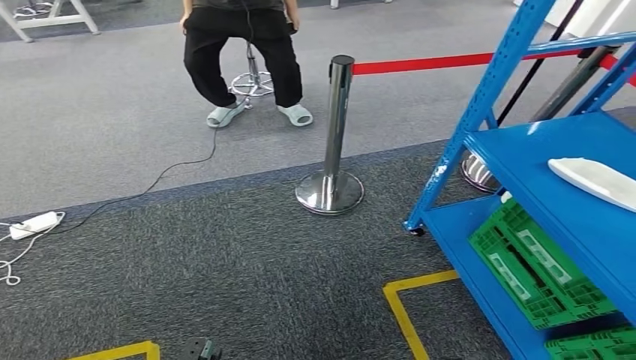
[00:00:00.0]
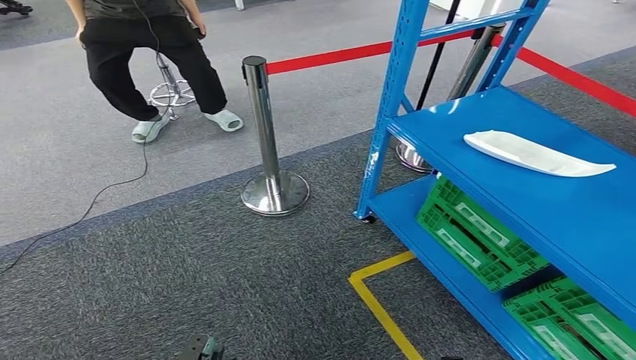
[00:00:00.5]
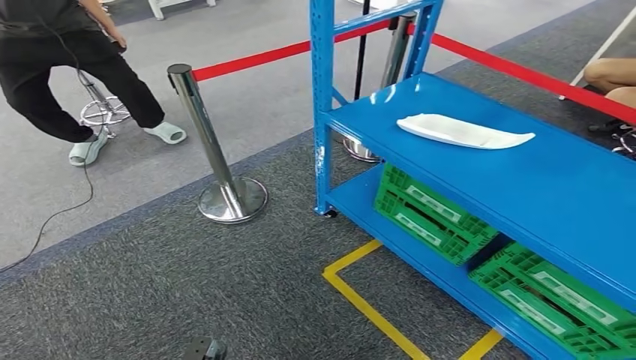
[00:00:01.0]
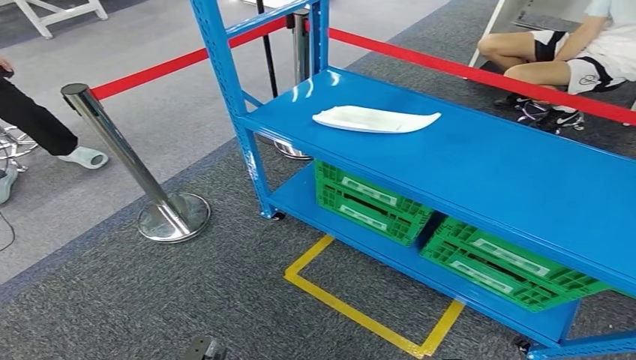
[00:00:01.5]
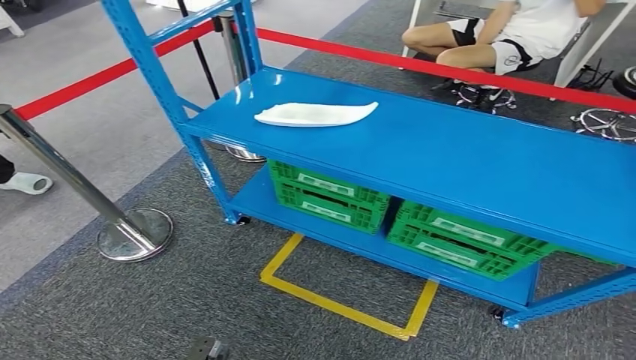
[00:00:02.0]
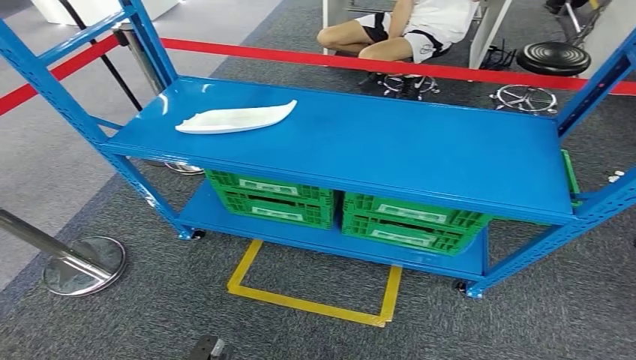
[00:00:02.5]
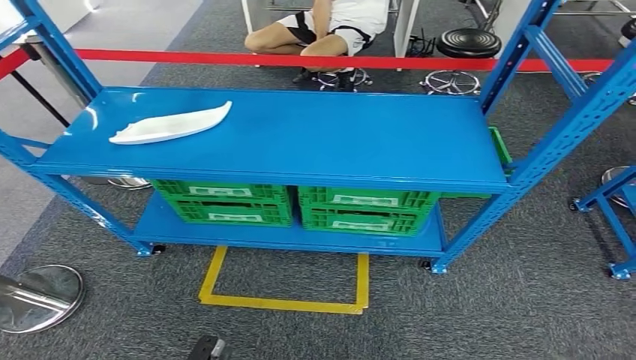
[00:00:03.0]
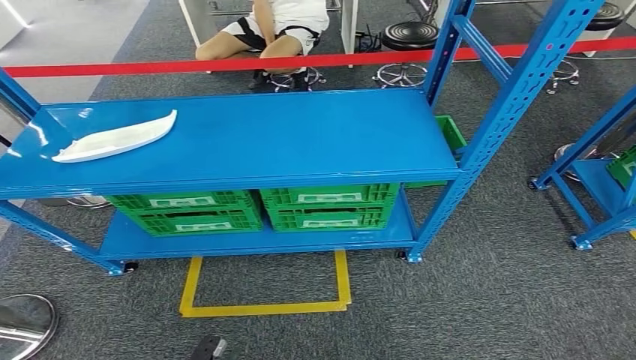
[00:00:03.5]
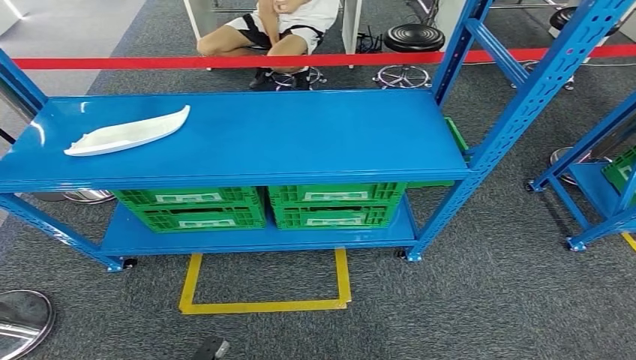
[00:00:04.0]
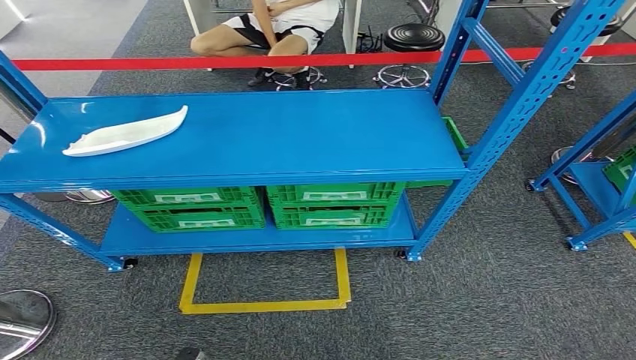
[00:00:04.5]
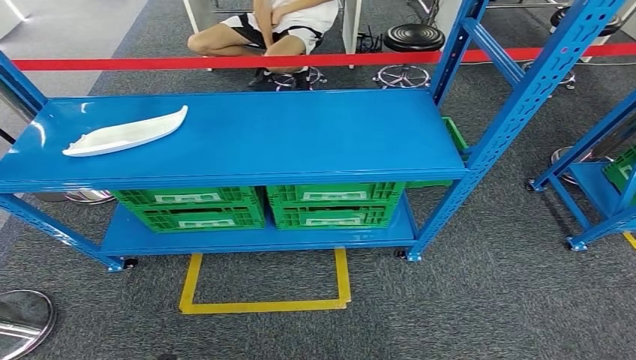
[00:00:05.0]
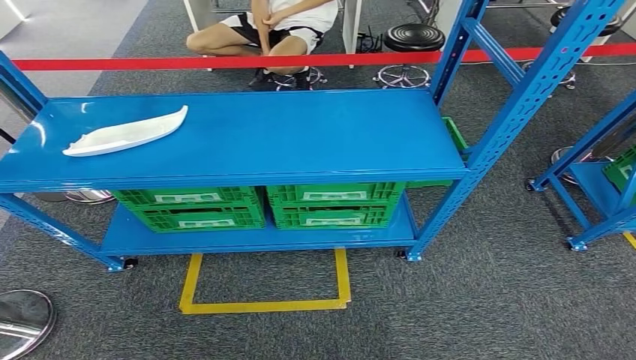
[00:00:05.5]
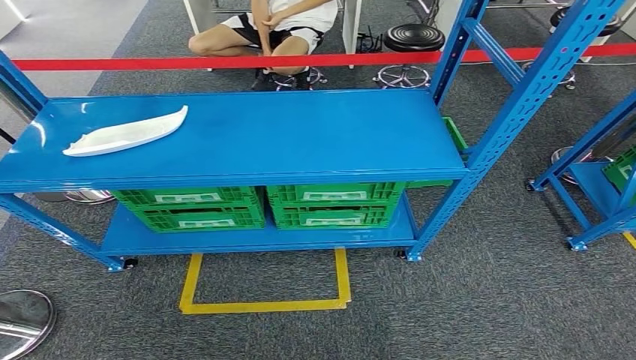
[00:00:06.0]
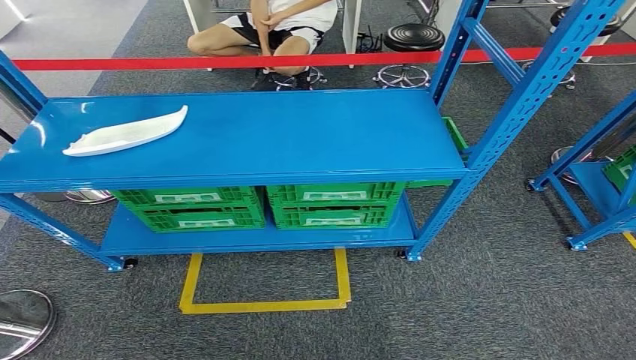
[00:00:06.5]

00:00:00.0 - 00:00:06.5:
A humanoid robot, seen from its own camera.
Step, 00:00:00.0 - 00:00:06.5: Return to the initial position at the workbench.
00:00:04.5 - 00:00:06.5: The left hand shifts roughly 5 cm to the left.
